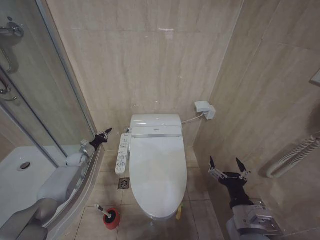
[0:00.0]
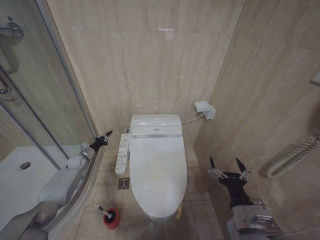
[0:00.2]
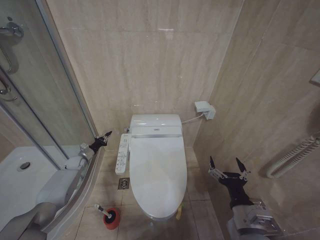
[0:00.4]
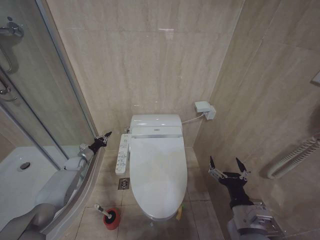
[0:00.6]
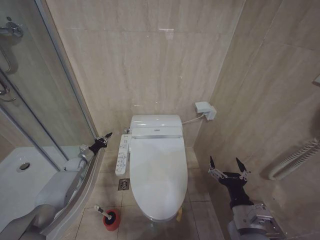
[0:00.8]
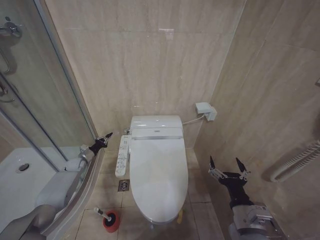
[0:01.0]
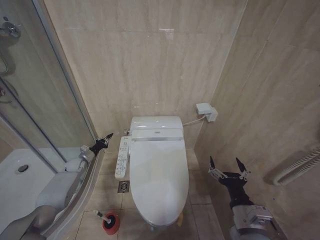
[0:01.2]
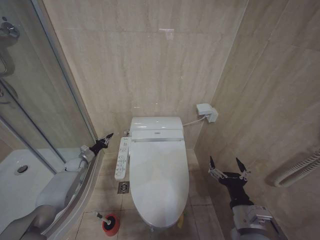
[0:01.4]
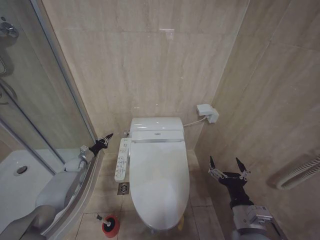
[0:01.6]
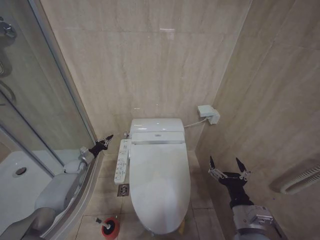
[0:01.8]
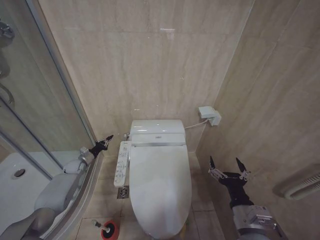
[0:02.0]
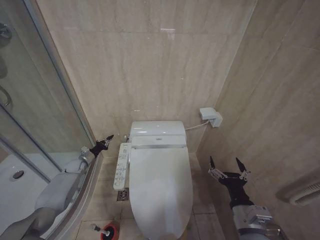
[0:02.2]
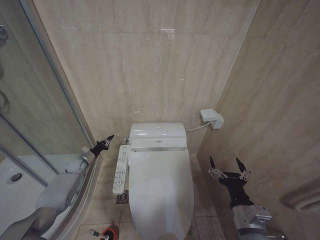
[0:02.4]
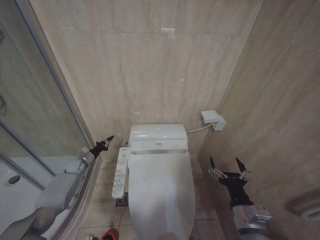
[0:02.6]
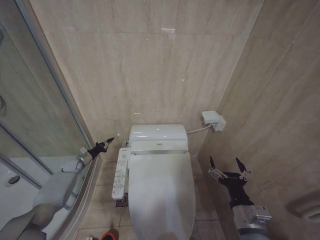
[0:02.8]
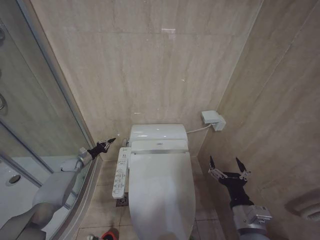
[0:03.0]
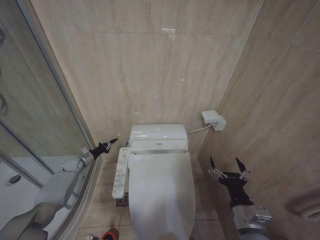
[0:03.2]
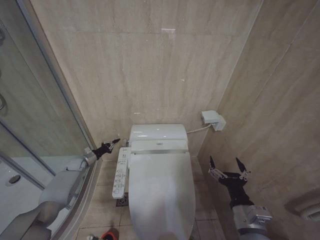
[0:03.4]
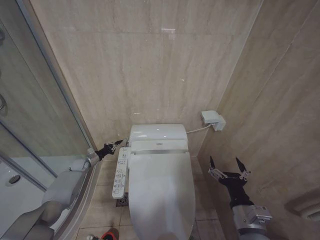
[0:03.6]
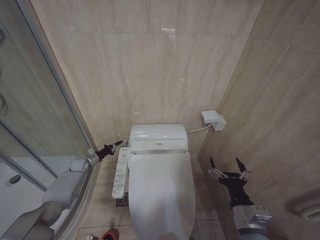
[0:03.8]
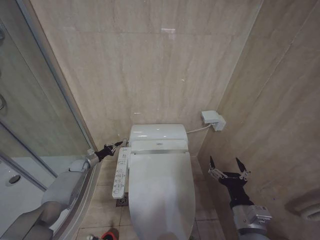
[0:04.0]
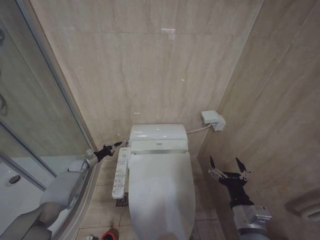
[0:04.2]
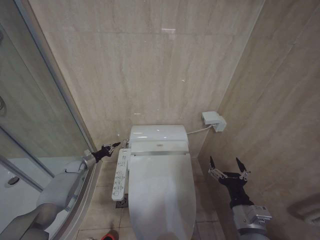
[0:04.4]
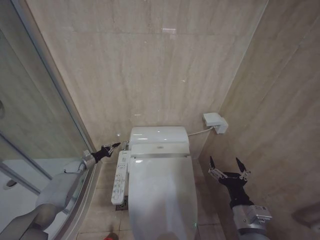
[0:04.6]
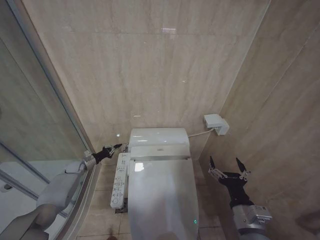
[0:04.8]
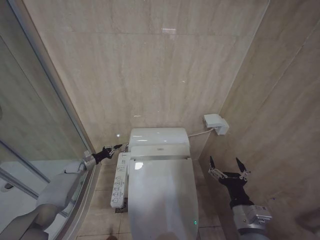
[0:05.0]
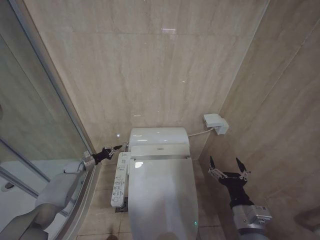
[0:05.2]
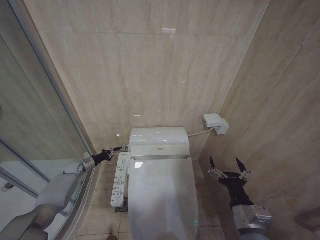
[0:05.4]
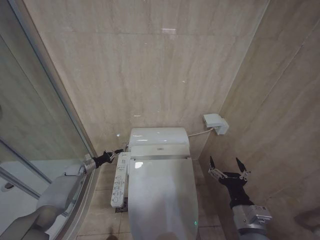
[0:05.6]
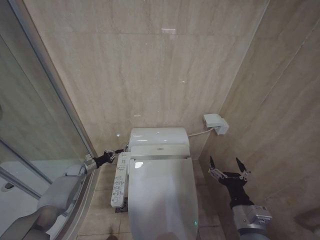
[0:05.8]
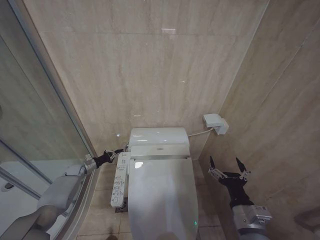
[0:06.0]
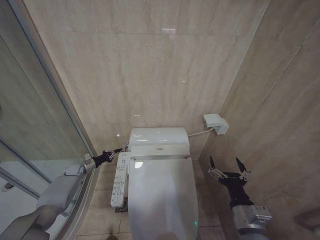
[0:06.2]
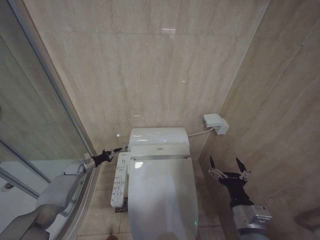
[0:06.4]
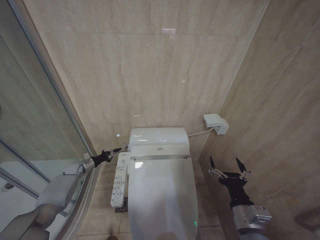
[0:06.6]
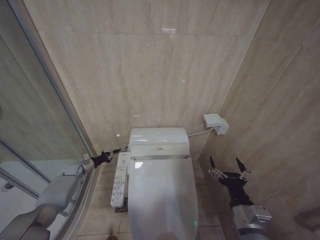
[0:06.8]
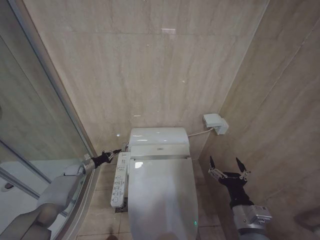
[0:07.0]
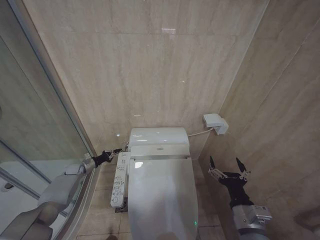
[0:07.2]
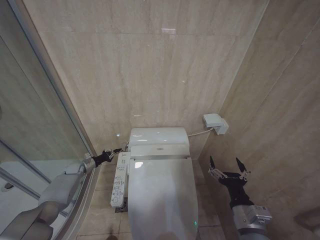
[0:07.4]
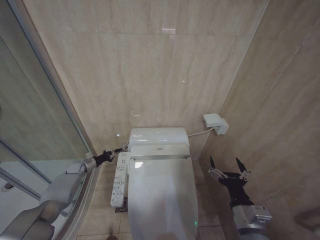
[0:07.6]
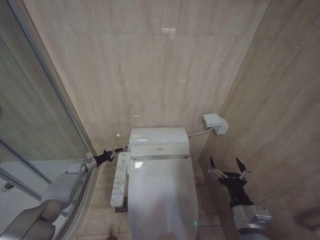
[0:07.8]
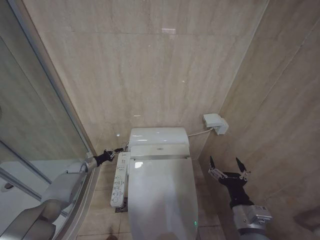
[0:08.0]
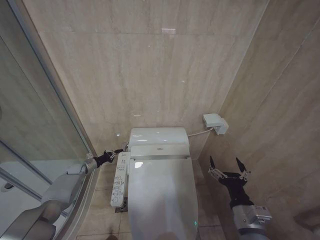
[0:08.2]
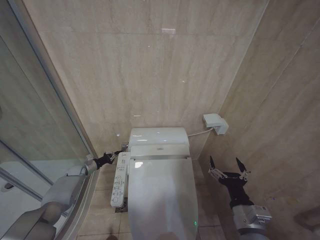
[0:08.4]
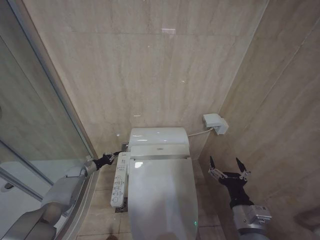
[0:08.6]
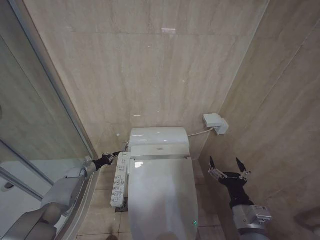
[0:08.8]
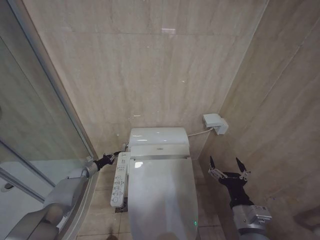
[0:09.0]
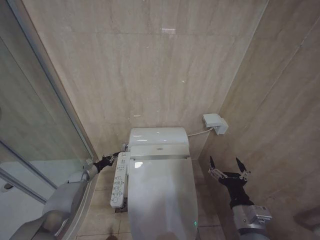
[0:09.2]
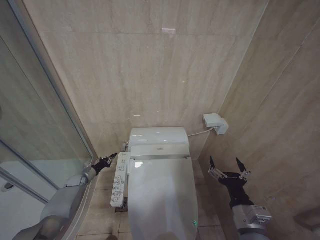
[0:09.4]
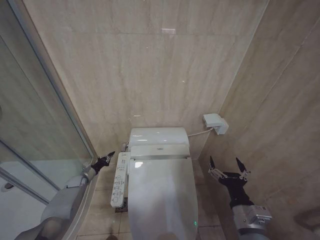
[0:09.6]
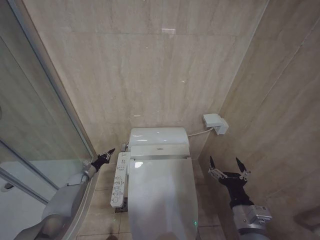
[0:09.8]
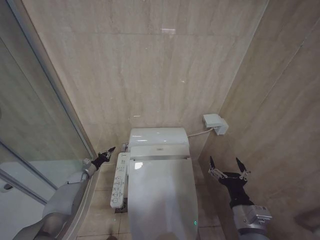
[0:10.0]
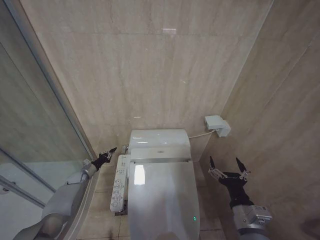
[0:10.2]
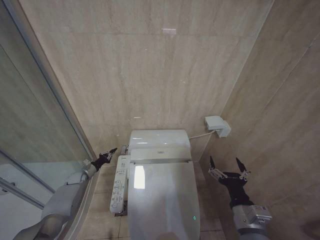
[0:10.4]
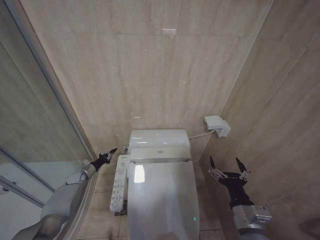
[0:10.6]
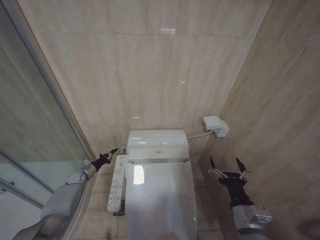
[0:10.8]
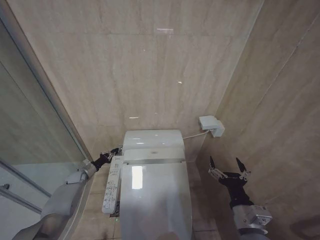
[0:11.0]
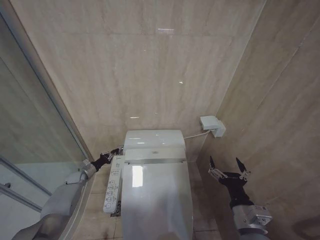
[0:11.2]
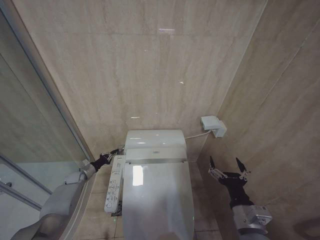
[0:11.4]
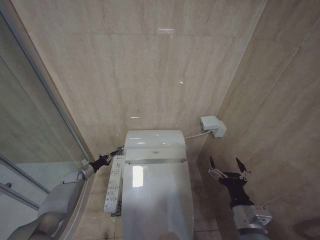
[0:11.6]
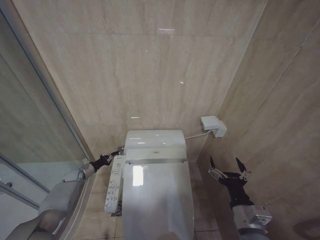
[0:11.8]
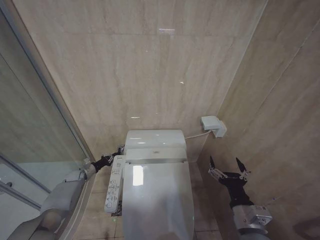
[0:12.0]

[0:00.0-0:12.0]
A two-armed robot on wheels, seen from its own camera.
Task of the whole recording: Open the toilet lid, clean the toilet bowl with a toilet brush, close the toilet lid, and flush.
0:00.0 to 0:04.4: There are only small adjustments of the grippers.
0:04.4 to 0:06.0: There are only small adjustments of the grippers.
0:06.0 to 0:07.6: The two grippers keep their place.
0:07.6 to 0:09.0: The grippers make only small movements.
0:09.0 to 0:12.0: There are only small adjustments of the grippers.

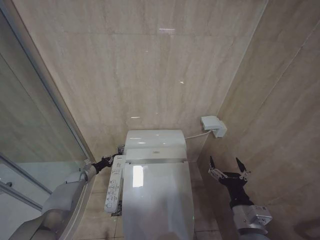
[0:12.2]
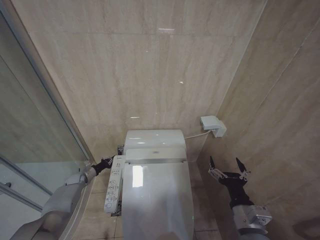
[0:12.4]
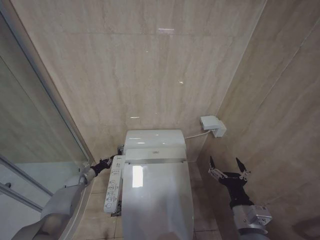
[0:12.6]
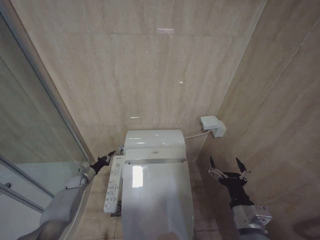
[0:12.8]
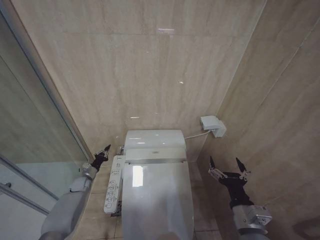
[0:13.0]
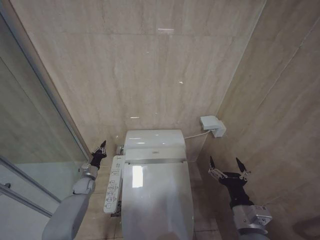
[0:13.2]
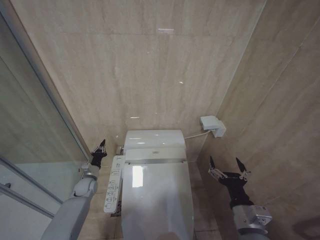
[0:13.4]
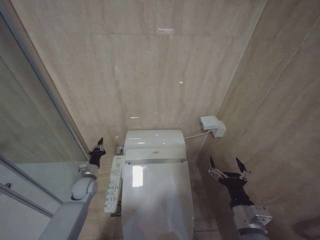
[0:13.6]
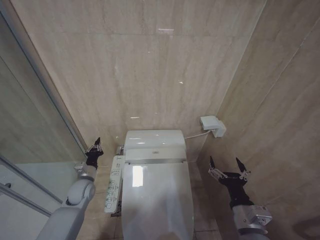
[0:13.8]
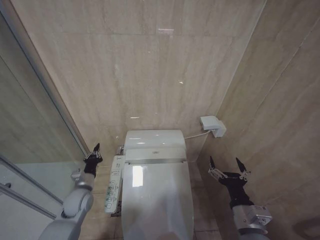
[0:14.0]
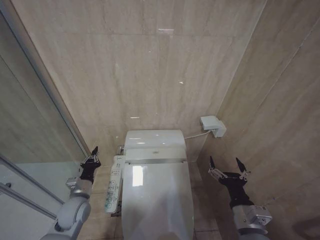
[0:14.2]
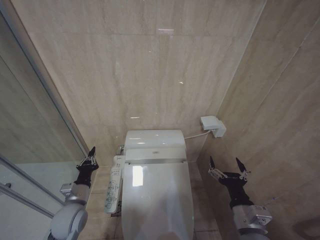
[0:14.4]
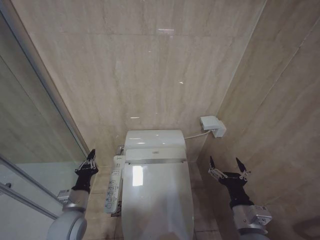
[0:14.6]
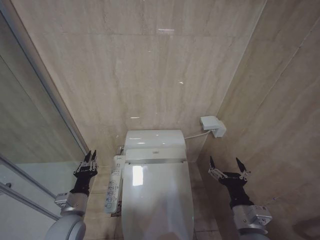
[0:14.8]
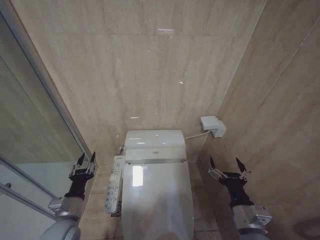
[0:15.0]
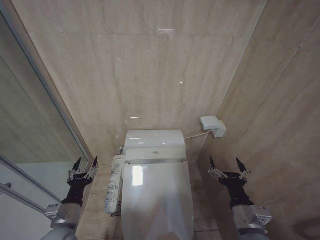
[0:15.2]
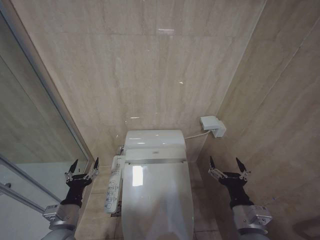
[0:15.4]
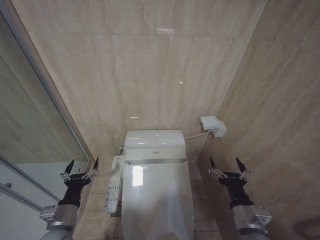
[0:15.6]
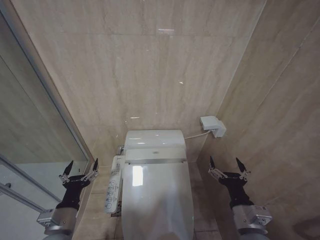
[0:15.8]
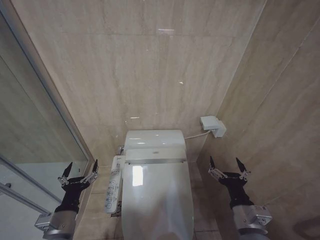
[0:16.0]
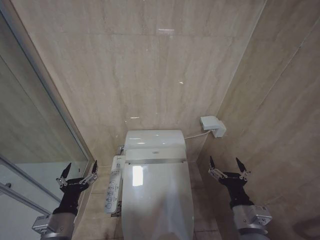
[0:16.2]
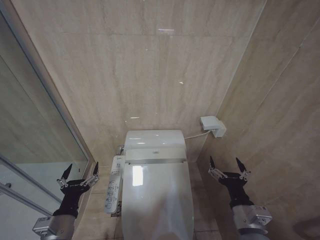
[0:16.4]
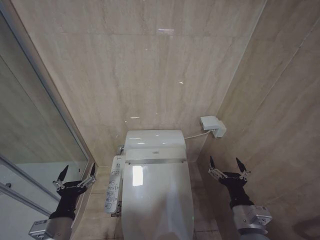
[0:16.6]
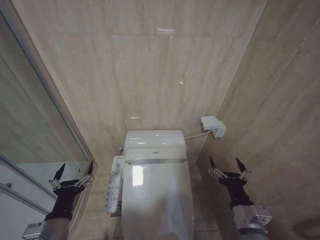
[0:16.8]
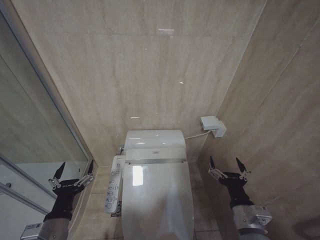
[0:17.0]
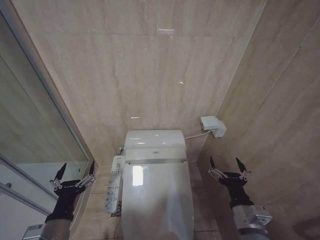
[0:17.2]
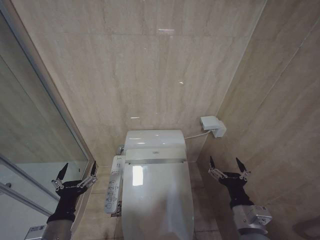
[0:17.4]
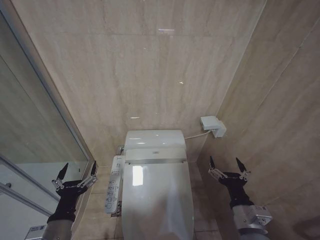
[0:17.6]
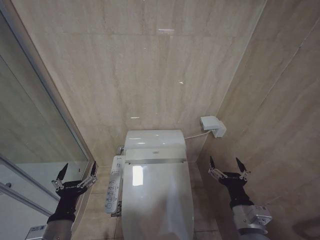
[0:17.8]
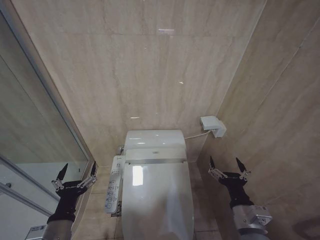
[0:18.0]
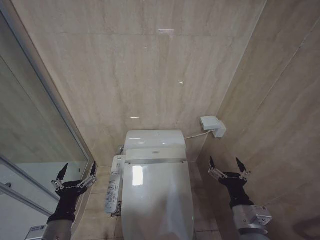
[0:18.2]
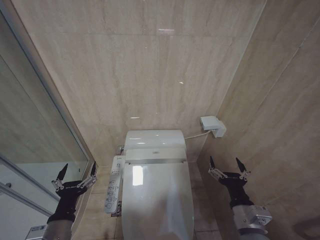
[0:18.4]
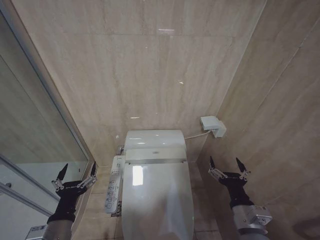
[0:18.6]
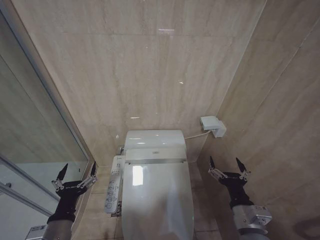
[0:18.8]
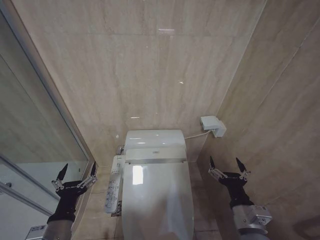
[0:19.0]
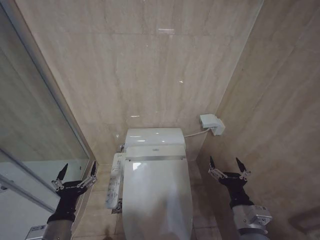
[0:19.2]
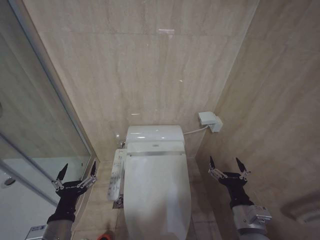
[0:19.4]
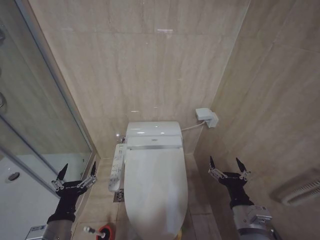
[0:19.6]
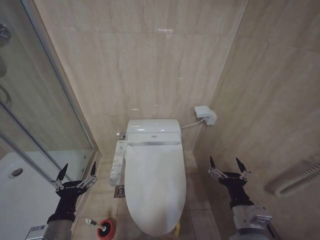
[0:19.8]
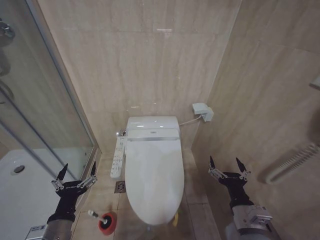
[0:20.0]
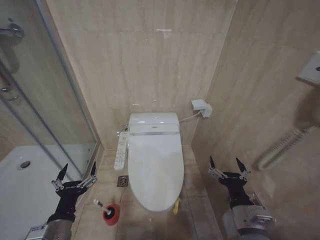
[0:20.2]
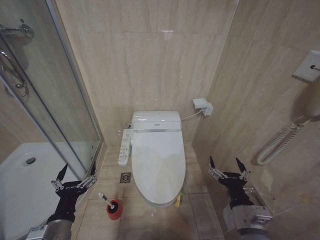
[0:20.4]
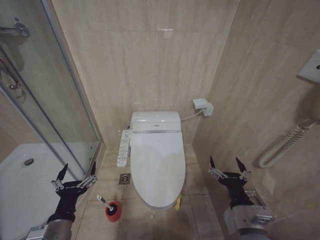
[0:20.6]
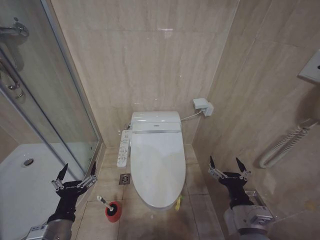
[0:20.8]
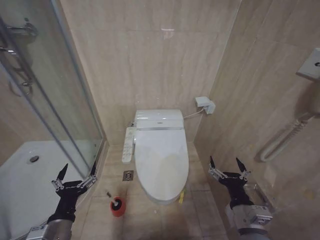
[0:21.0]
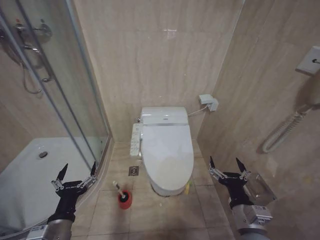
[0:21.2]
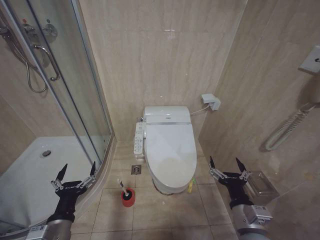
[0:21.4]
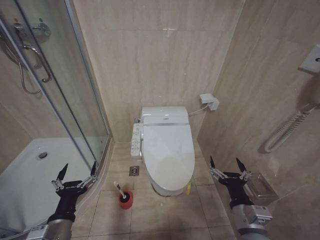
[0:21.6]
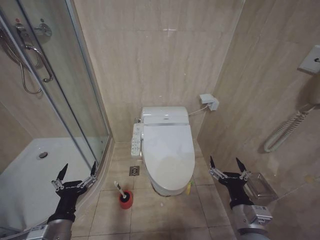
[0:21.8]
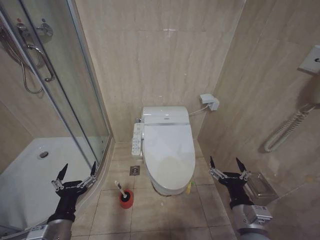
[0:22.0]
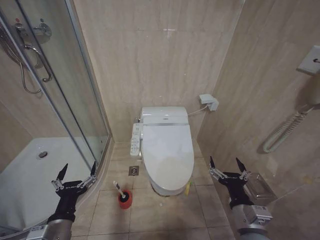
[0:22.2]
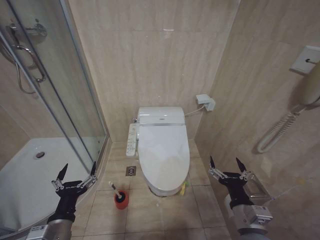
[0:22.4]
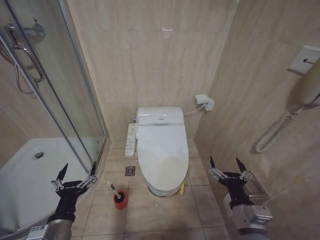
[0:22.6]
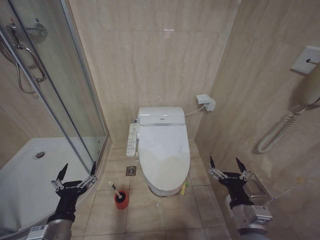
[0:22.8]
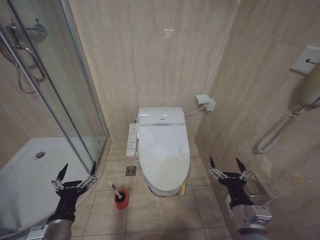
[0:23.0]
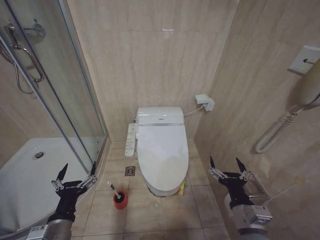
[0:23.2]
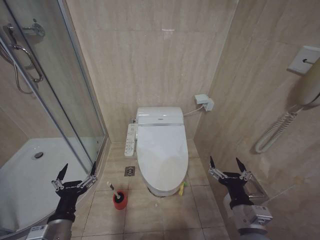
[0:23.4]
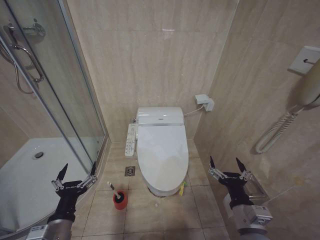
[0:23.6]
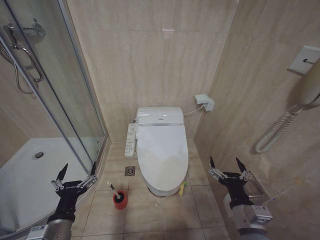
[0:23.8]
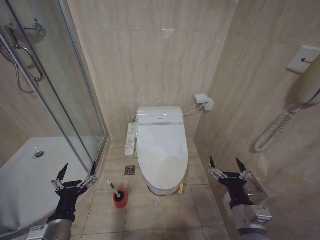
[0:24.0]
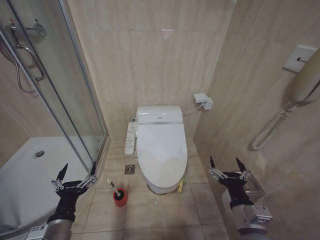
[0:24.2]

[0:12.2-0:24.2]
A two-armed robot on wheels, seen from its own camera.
Task of the whole recording: Open the toilet lid, clean the toilet bowl with a toilet brush, close the toilet lid, and flush.
0:12.2 to 0:13.8: The left gripper travels to the right, backward and upward by roughly 20 cm.
0:13.8 to 0:15.2: The left gripper moves backward, roughly 20 cm, and opens up.
0:15.2 to 0:16.6: The left gripper heads backward, covering roughly 5 cm, and opens its fingers.
0:18.2 to 0:19.8: Both grippers stay about where they are.
0:21.2 to 0:24.2: The two grippers keep their place.
